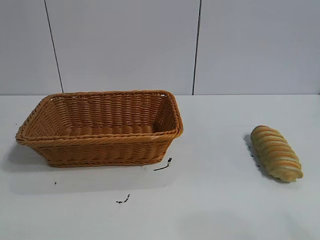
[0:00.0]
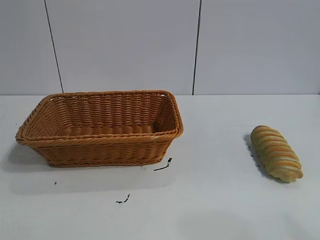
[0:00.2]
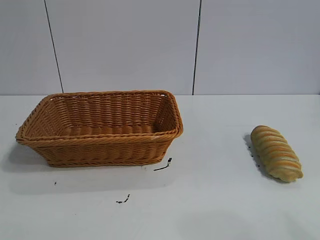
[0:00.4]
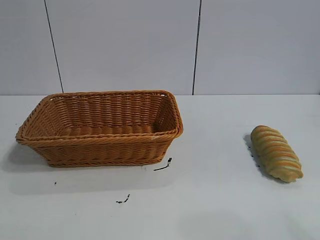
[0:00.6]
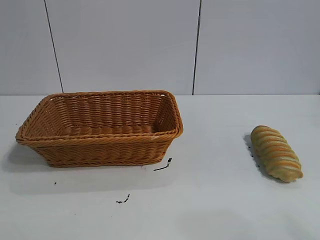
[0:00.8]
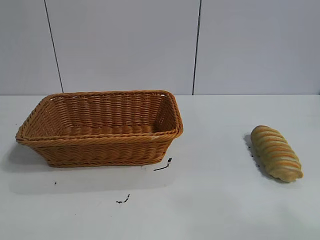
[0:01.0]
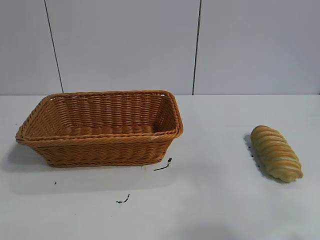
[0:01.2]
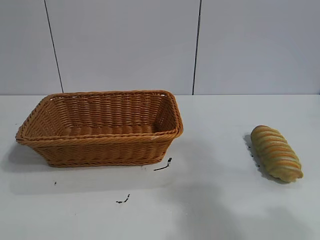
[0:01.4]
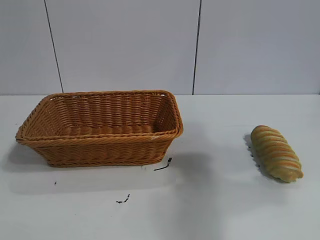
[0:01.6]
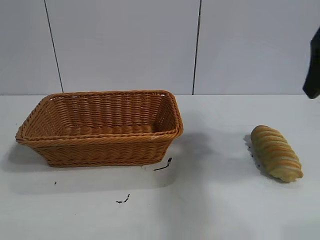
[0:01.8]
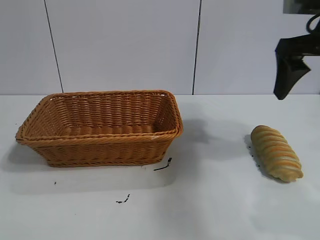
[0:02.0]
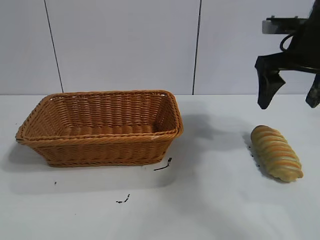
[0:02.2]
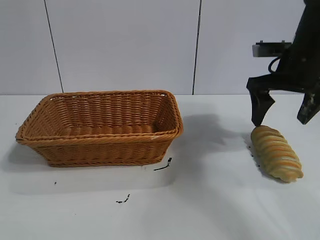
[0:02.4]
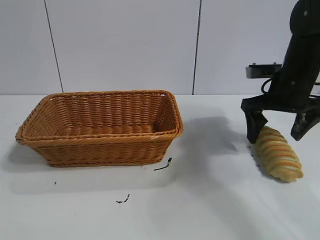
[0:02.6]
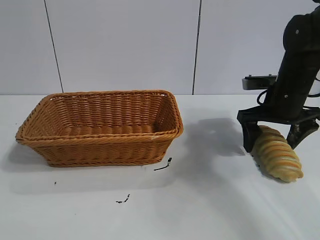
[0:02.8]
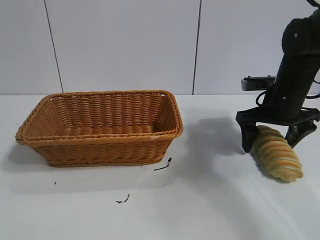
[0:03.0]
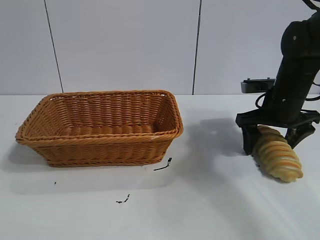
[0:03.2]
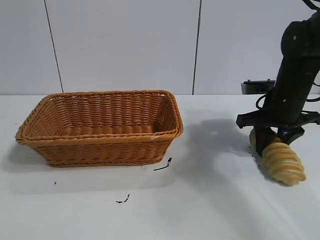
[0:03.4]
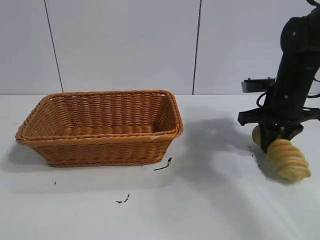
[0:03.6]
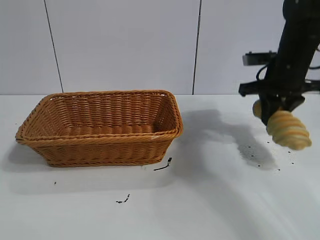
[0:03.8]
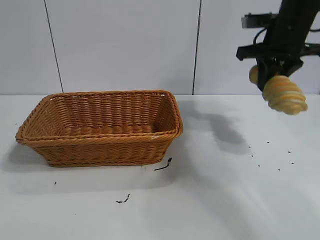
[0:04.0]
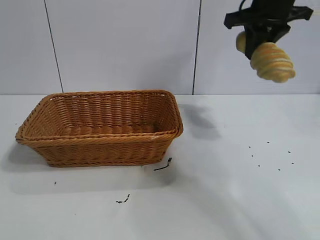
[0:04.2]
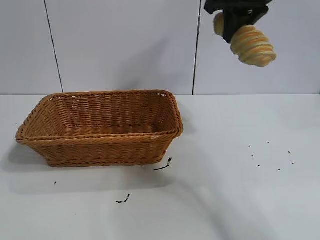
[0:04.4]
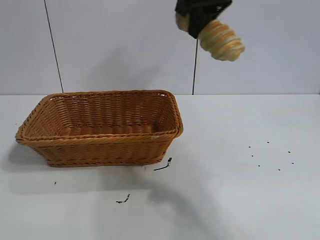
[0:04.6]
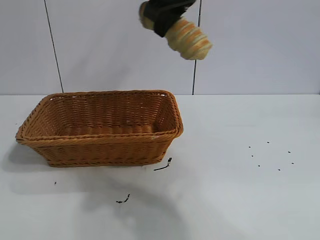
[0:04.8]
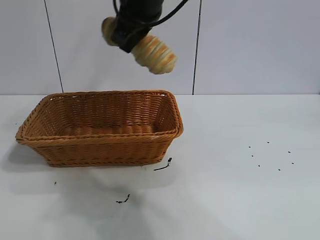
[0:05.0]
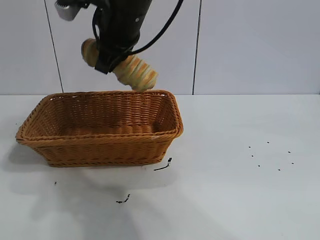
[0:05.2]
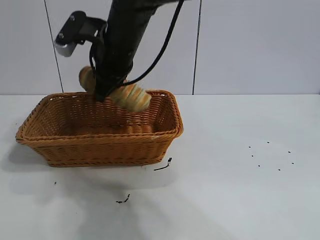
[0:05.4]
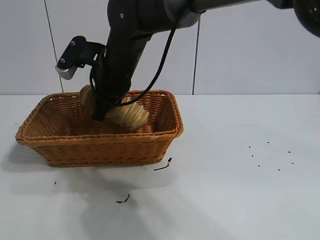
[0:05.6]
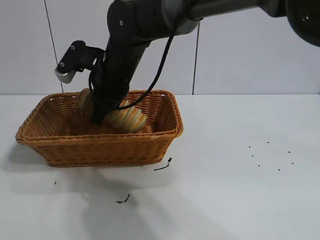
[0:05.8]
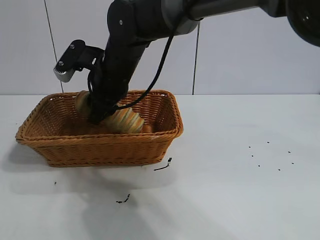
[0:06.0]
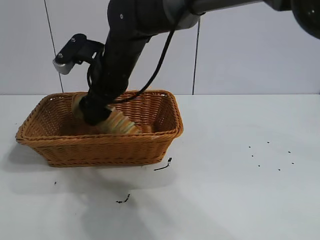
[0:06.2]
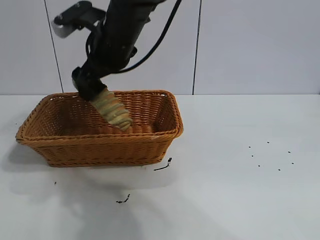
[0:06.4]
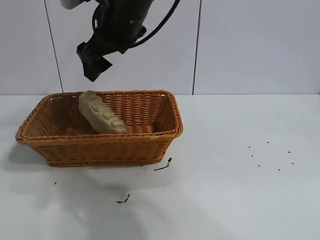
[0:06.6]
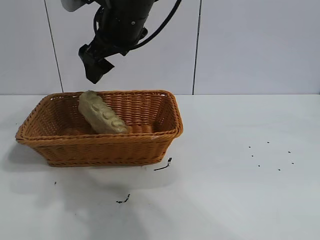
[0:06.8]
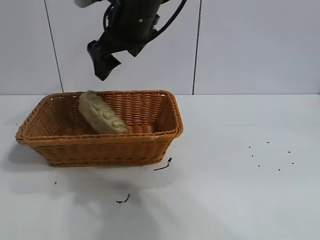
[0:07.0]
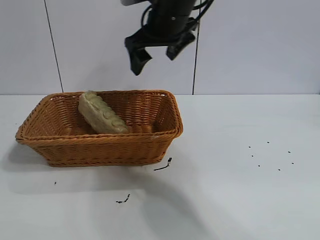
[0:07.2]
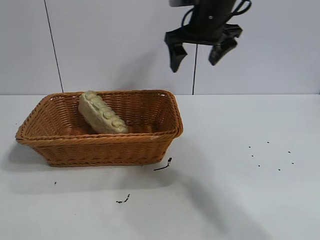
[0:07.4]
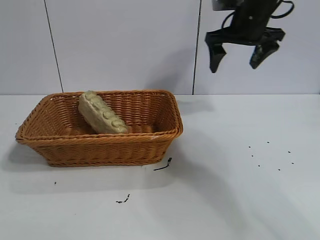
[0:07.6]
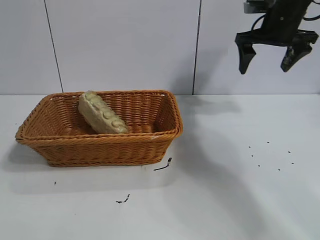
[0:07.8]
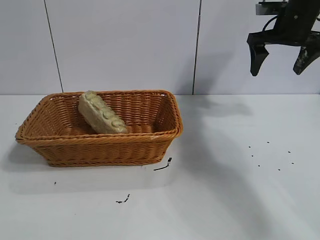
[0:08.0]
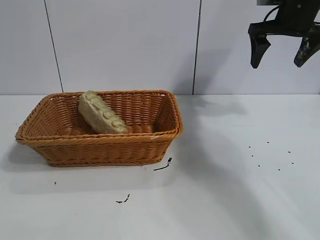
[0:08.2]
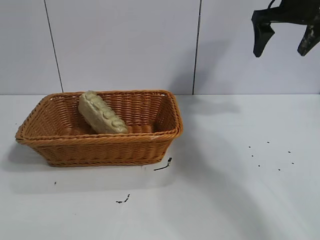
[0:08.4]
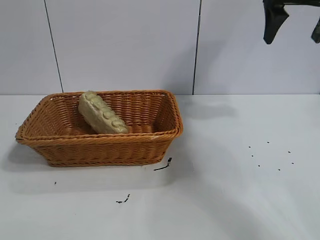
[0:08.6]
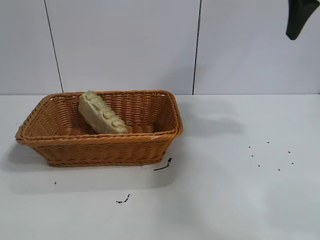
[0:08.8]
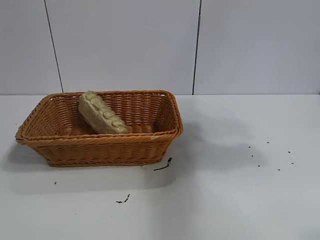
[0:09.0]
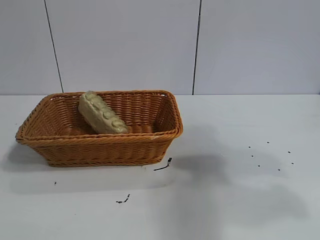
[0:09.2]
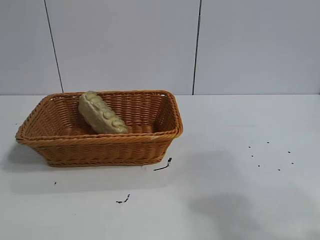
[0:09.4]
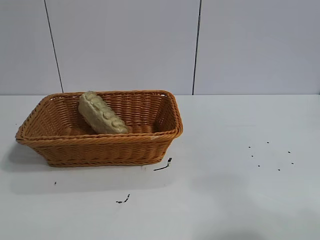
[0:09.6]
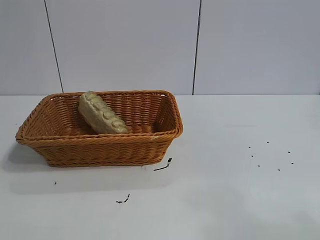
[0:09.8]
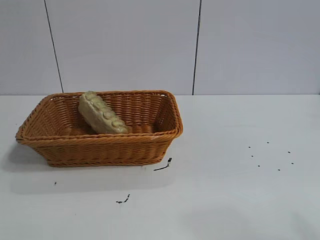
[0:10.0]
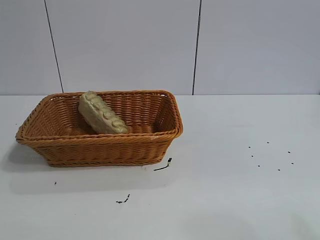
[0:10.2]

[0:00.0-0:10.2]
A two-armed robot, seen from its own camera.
Task of the whole recording: pick up the long bread and put it into the basket.
Step, 0:01.8 to 0:03.6: Grasp the long bread with right gripper.
Step, 0:03.8 to 0:06.6: Place the long bread in the basket with right gripper.
